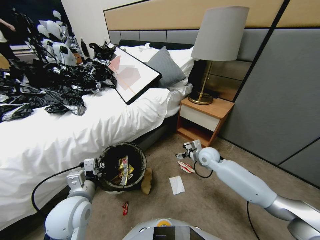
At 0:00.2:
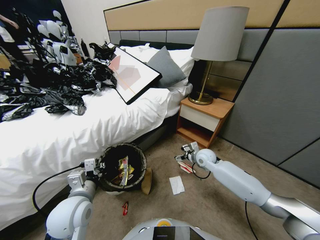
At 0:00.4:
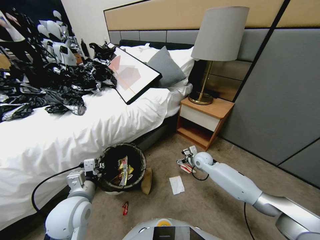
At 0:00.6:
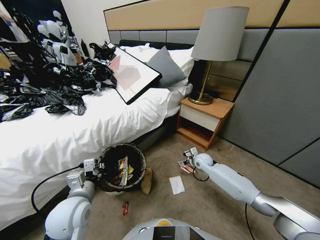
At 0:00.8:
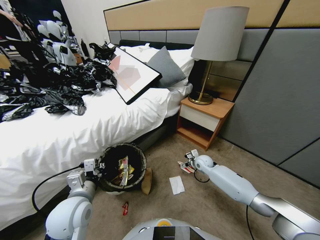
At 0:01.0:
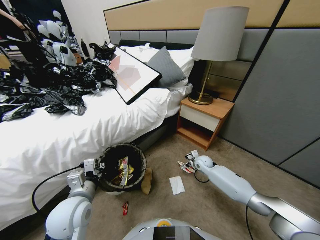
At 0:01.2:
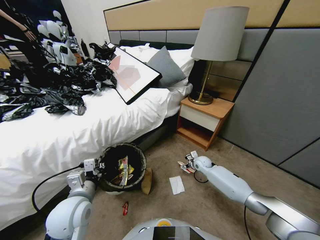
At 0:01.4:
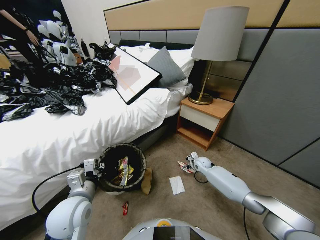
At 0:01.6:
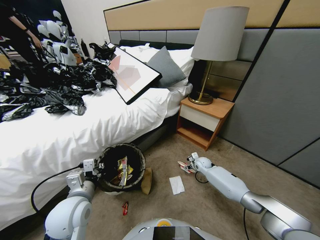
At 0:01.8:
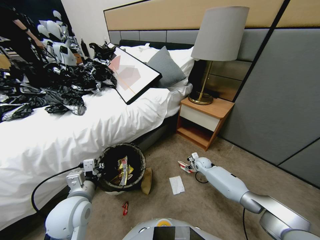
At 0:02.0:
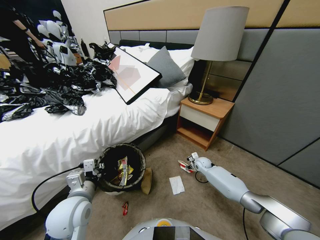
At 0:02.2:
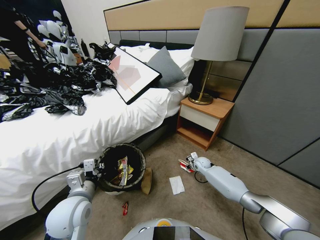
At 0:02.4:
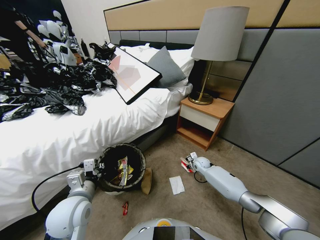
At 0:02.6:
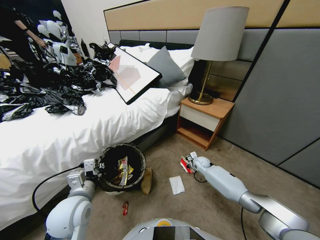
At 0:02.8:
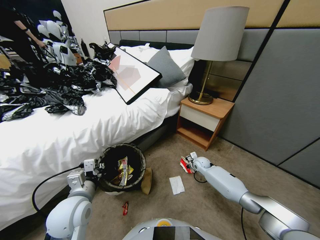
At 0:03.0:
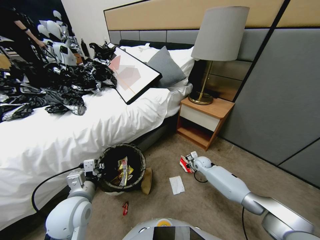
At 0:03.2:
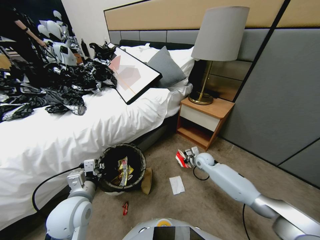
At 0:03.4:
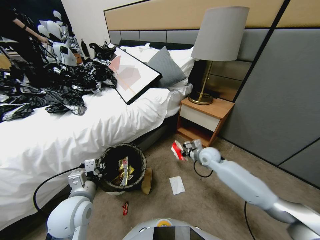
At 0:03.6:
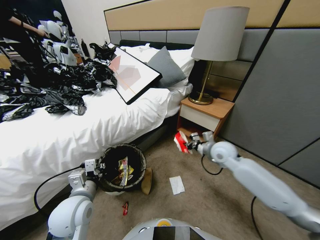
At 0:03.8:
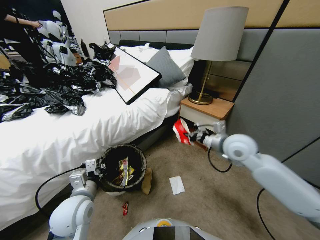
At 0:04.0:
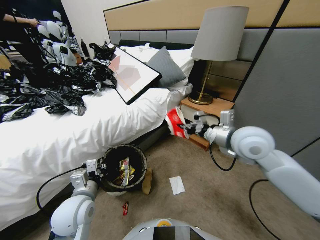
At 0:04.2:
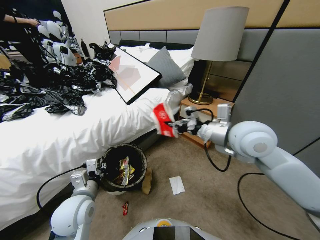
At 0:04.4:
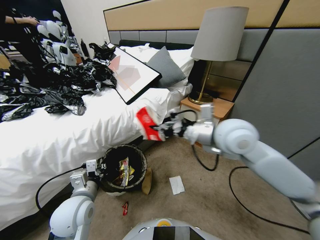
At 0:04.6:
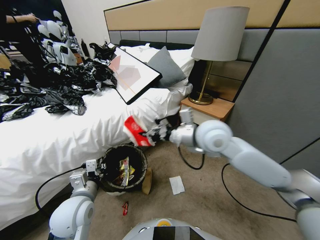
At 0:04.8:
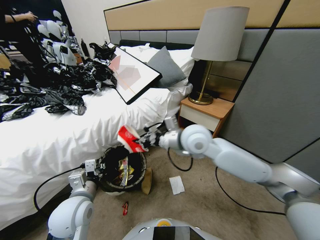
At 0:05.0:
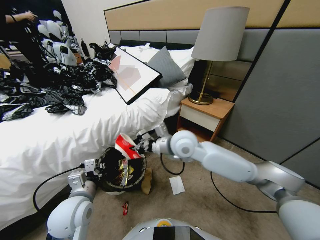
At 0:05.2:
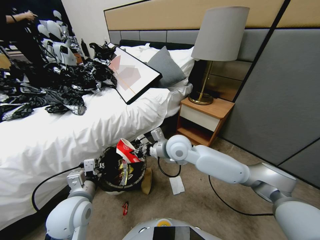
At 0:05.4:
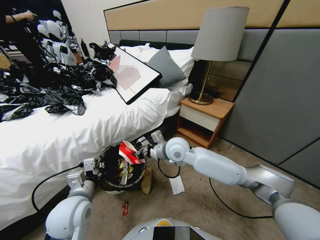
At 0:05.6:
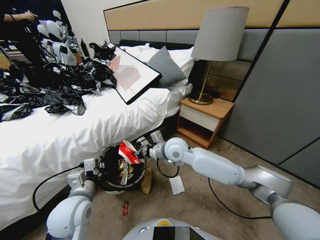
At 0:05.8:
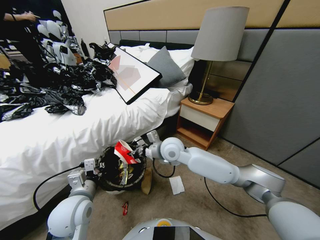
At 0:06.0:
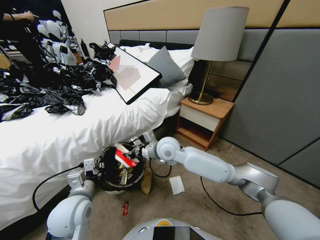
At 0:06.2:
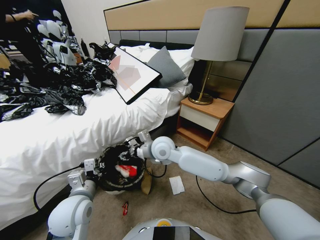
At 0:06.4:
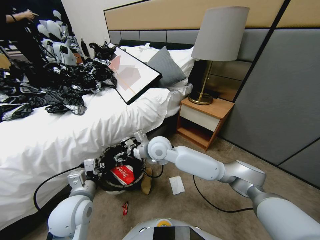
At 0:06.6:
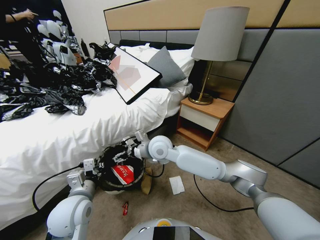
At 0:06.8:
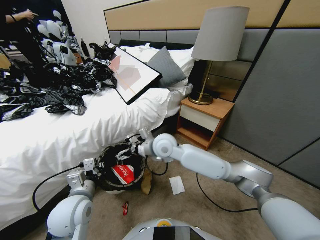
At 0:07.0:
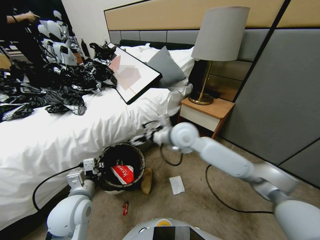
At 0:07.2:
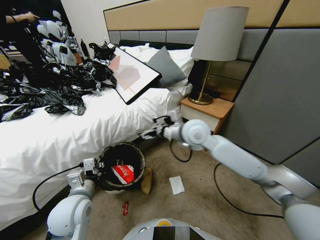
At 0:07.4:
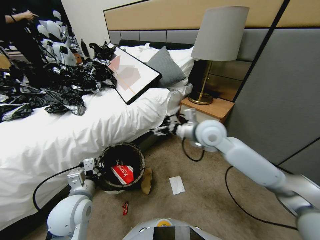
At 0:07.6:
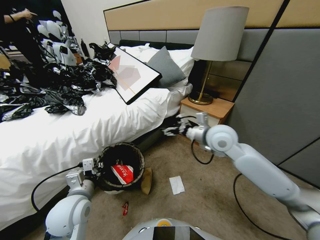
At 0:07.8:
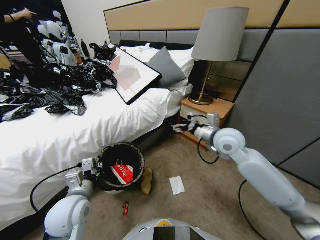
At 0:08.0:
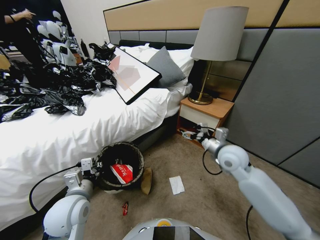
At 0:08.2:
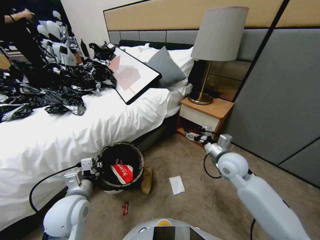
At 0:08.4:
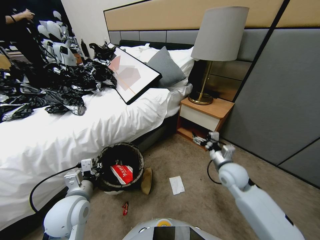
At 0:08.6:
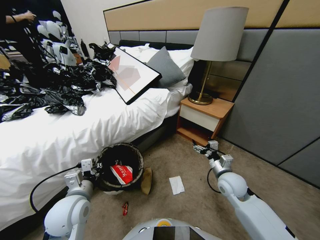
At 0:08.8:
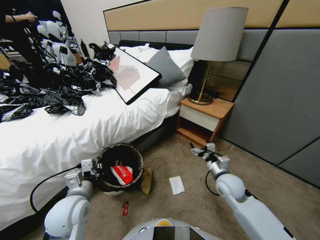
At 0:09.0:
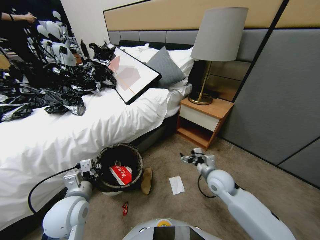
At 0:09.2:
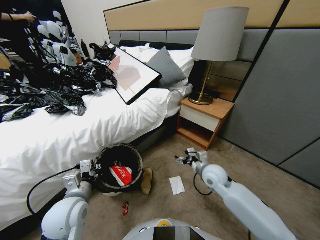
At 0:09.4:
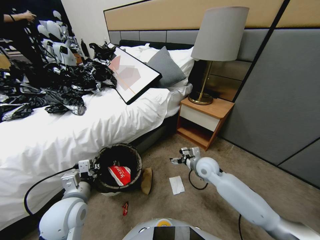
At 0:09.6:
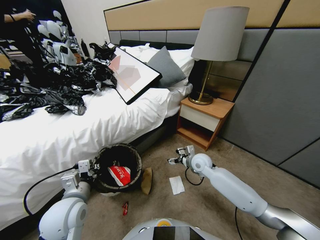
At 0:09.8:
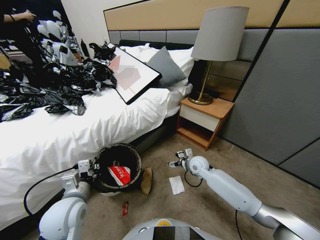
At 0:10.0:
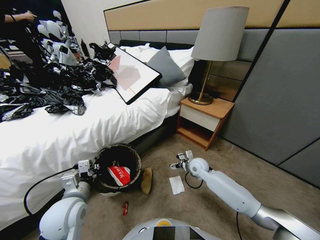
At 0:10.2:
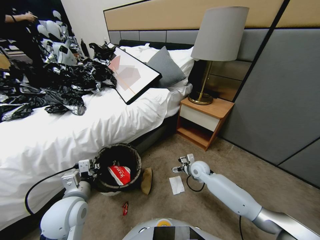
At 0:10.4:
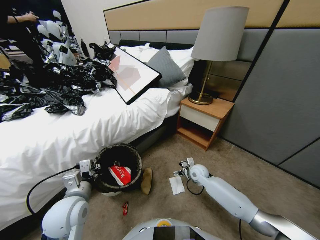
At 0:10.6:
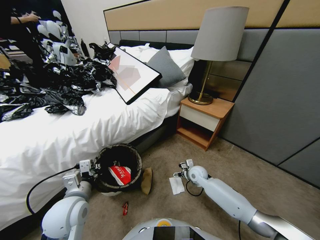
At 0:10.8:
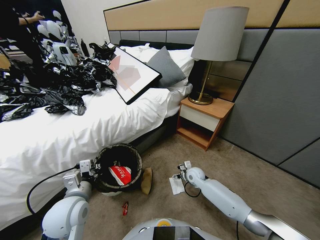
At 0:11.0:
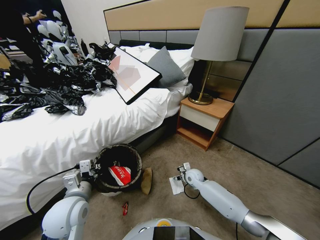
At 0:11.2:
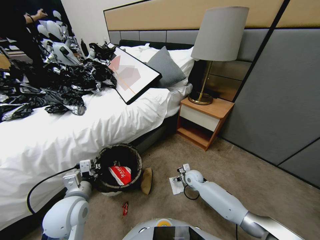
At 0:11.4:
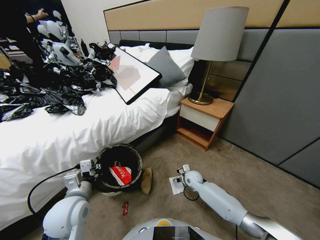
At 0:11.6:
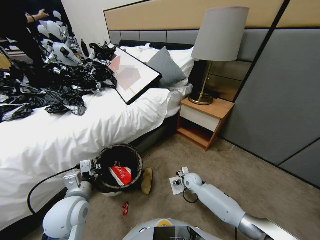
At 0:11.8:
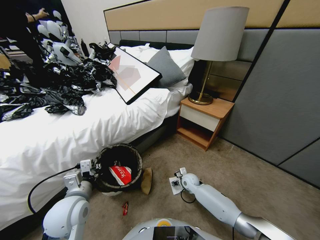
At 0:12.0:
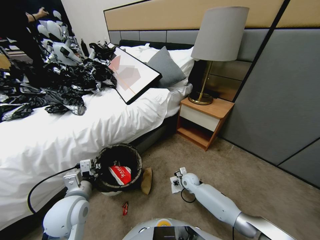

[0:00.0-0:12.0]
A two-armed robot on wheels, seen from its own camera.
Task of the whole recording: Pick up the trash bin, then pick up the garbage from the floor and place it into the trash bin.
0:00.0 to 0:01.6: The right gripper moves downward, approximately 15 cm.
0:01.6 to 0:03.0: The right gripper closes its fingers.
0:03.0 to 0:04.4: The right gripper moves upward, approximately 40 cm.
0:04.4 to 0:06.0: The right gripper is displaced to the left and downward by roughly 20 cm.
0:06.0 to 0:07.6: The right gripper moves to the right, about 20 cm, and opens its fingers.
0:07.6 to 0:09.0: The right gripper travels downward and backward by roughly 20 cm.
0:09.0 to 0:10.4: The right gripper travels downward and forward by approximately 15 cm.
0:10.4 to 0:12.0: The right gripper shifts roughly 5 cm downward, and closes its fingers.

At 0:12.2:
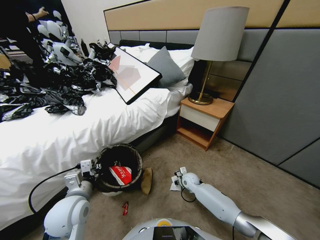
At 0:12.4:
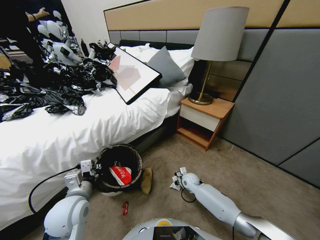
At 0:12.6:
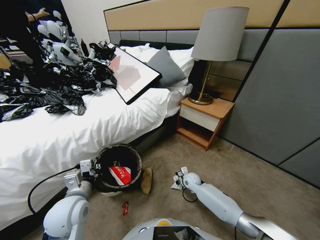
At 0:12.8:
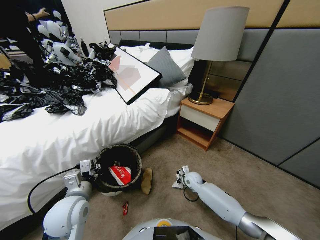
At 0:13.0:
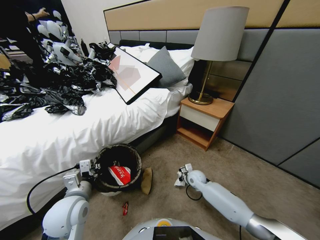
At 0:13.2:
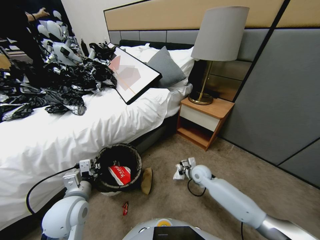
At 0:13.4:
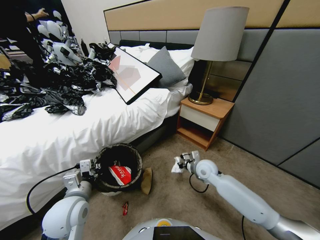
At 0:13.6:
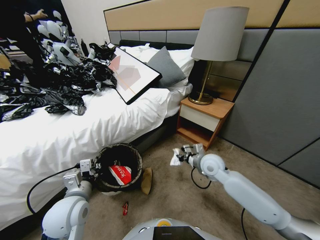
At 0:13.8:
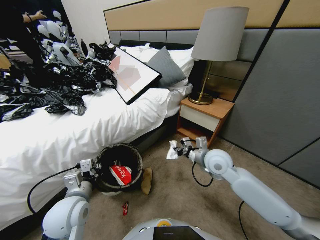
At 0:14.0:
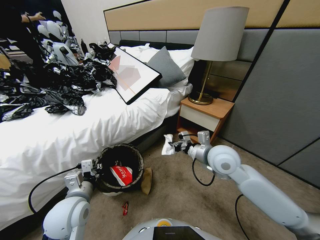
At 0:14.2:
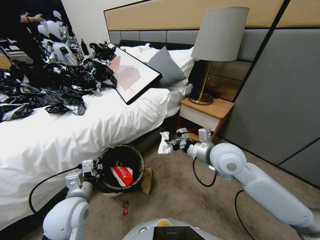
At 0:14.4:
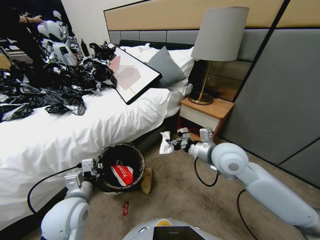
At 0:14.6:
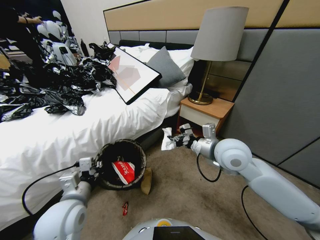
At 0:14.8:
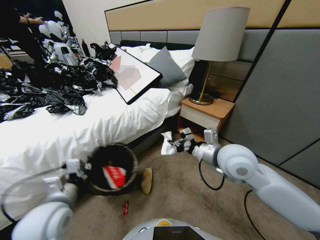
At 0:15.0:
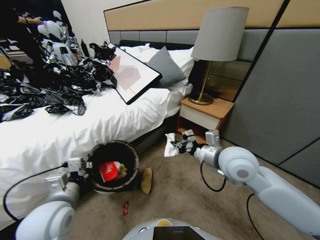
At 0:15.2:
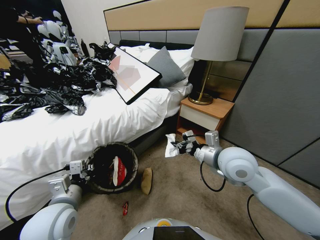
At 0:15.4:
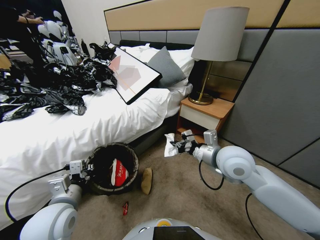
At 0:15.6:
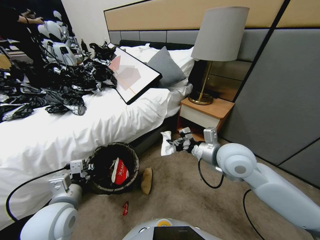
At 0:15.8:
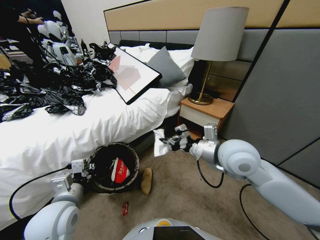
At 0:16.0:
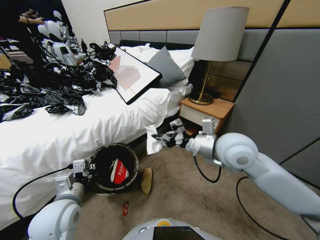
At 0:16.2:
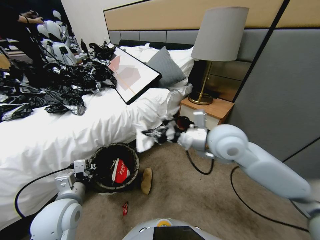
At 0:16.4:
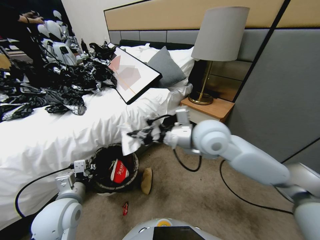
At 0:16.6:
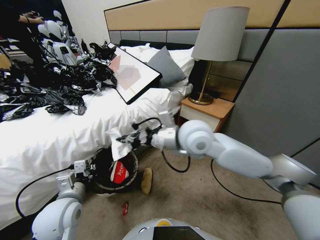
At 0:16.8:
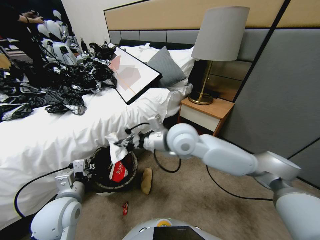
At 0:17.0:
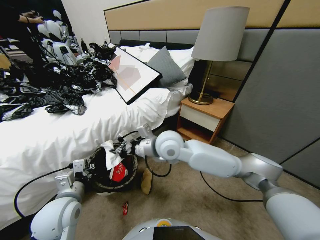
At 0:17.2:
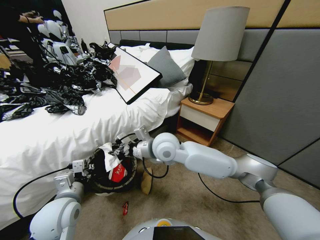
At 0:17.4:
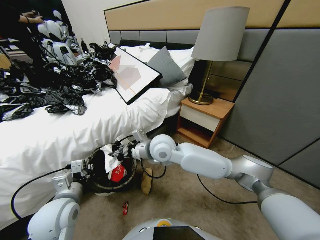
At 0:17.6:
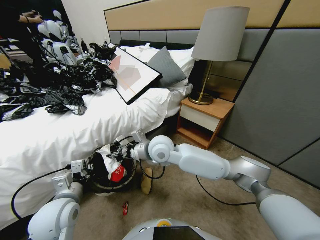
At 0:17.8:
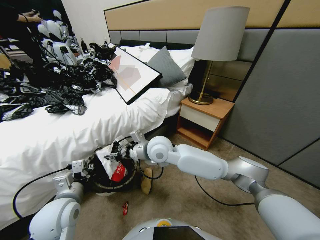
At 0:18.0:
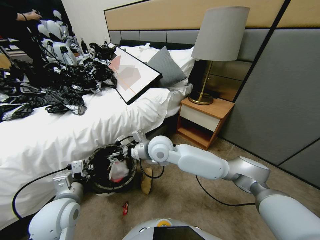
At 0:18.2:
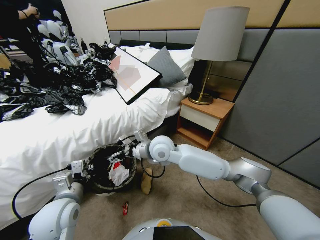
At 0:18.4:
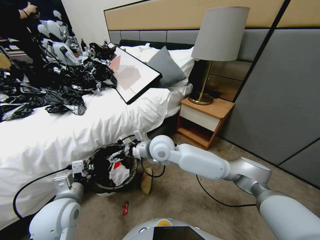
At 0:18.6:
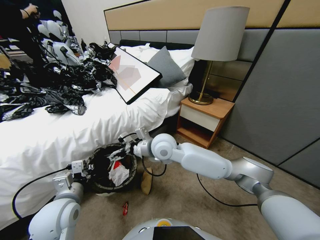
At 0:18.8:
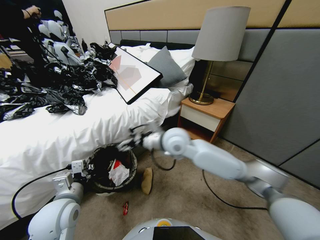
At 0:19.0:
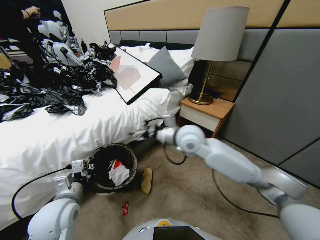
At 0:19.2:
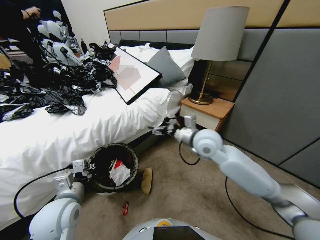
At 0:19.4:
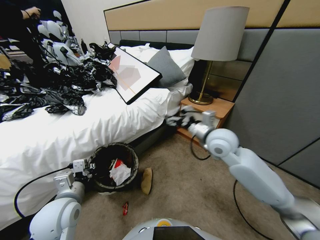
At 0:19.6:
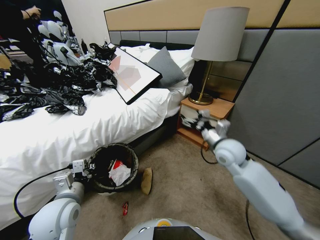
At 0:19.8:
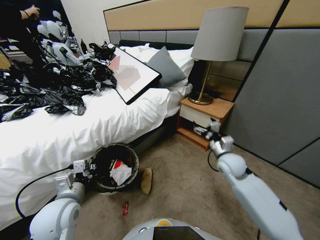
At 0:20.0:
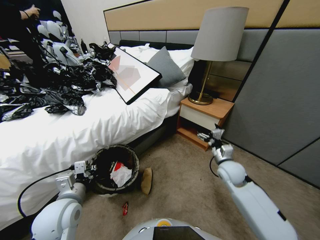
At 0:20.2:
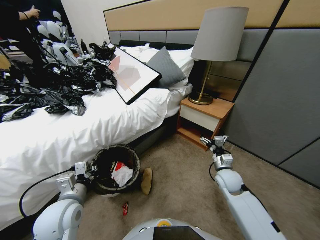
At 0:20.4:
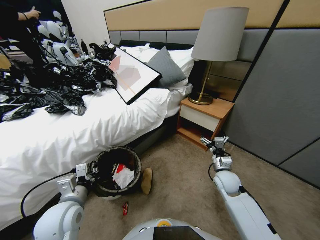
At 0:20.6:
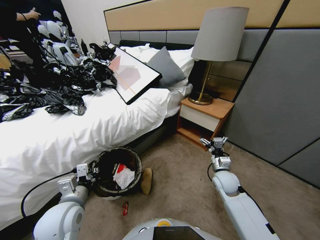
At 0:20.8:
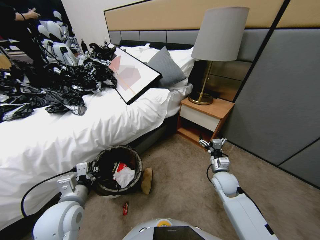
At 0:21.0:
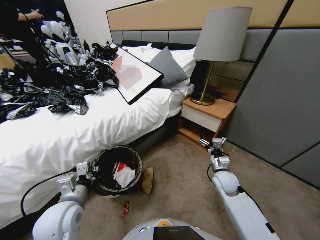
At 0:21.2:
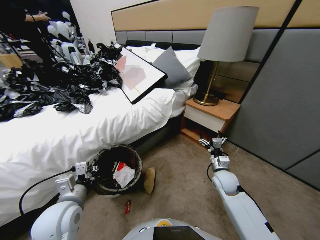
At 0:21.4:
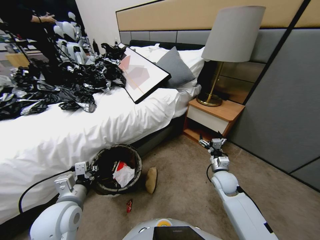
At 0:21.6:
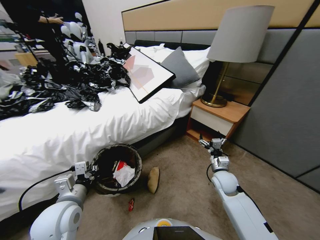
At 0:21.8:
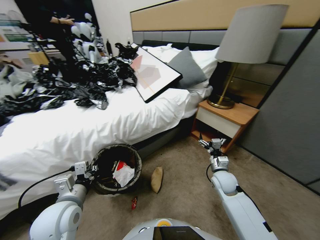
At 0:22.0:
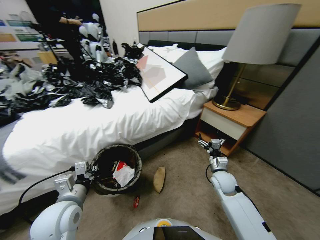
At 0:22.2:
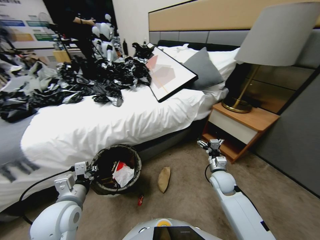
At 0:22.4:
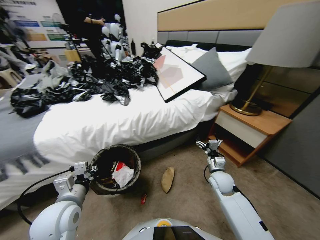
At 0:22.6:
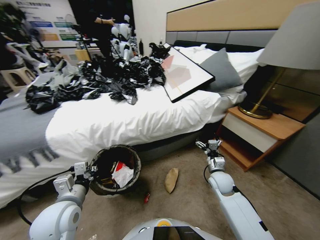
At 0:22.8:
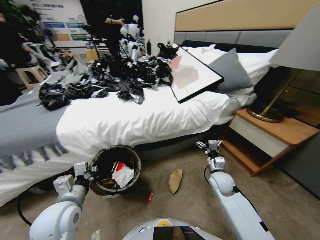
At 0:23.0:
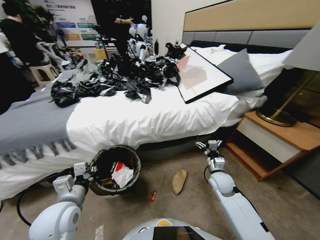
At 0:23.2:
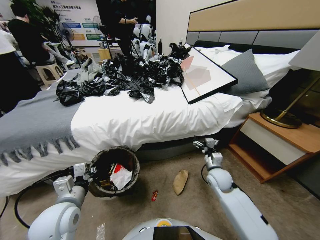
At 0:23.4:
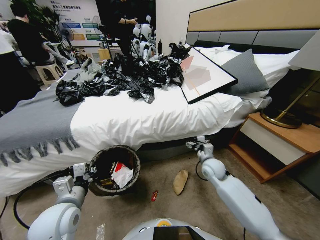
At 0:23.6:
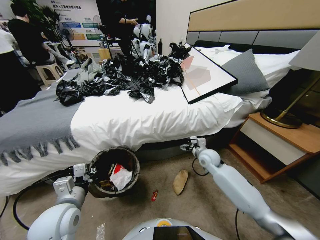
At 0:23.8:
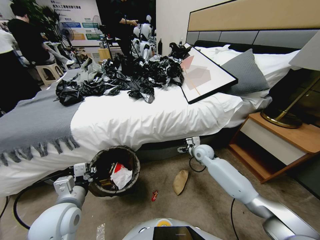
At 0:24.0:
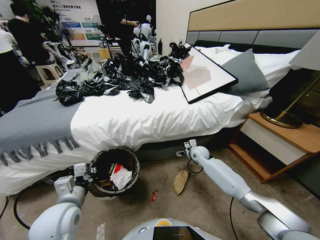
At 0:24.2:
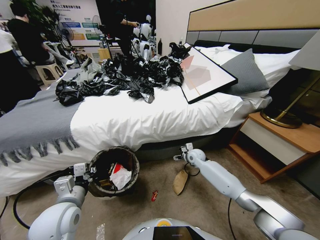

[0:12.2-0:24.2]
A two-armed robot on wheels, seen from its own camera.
Task of the whole recording: Pick up the trash bin, then pick up the garbage from the floor and place it into the trash bin.
0:12.2 to 0:13.8: The right gripper shifts roughly 35 cm upward.
0:13.8 to 0:15.2: There are only small adjustments of the grippers.
0:15.2 to 0:16.6: The right gripper moves to the left, approximately 15 cm.
0:16.6 to 0:18.2: The right gripper moves downward and to the left, roughly 10 cm, and opens up.
0:18.2 to 0:19.8: The right gripper travels to the right by roughly 30 cm.
0:19.8 to 0:21.2: The right gripper moves downward, some 10 cm.
0:22.6 to 0:24.2: The right gripper travels forward and to the left by about 15 cm.
